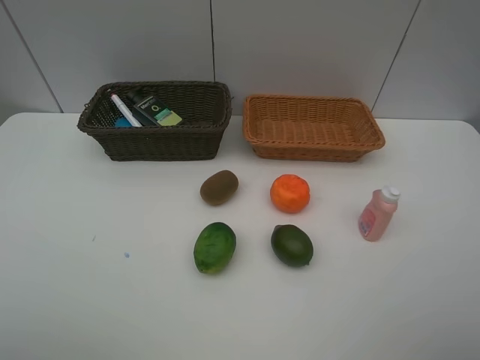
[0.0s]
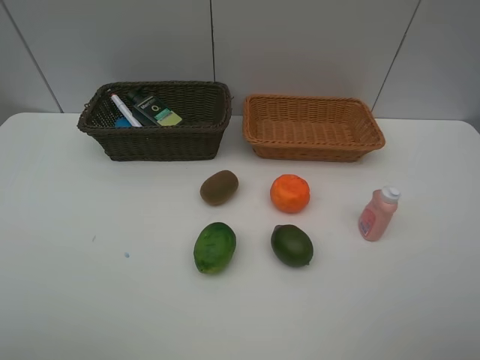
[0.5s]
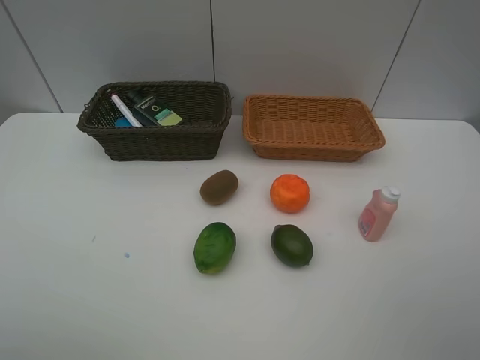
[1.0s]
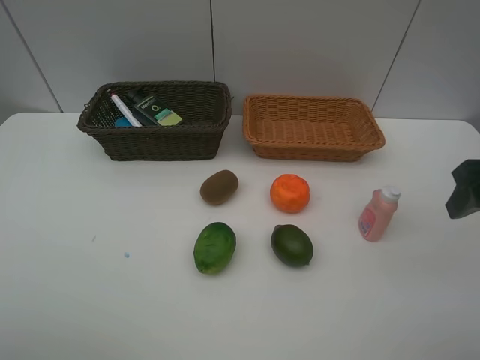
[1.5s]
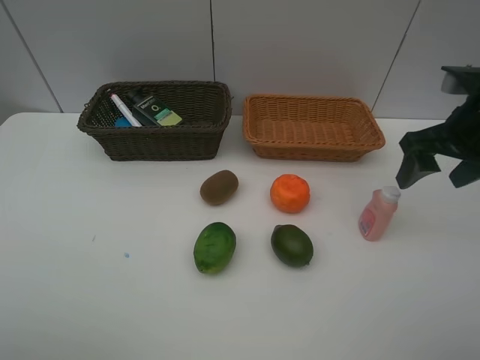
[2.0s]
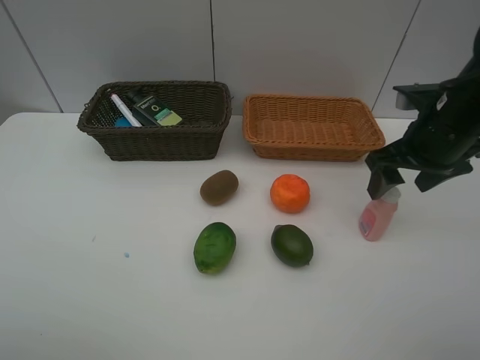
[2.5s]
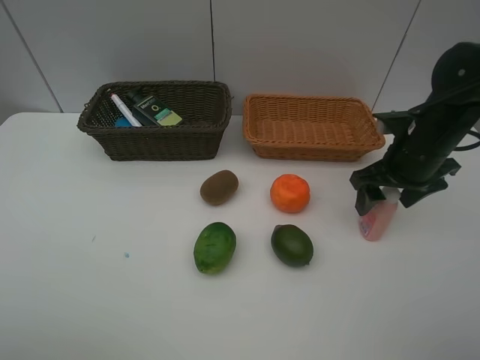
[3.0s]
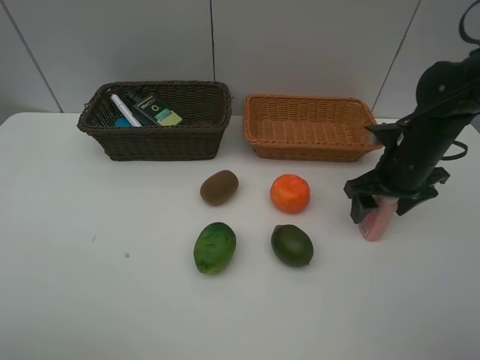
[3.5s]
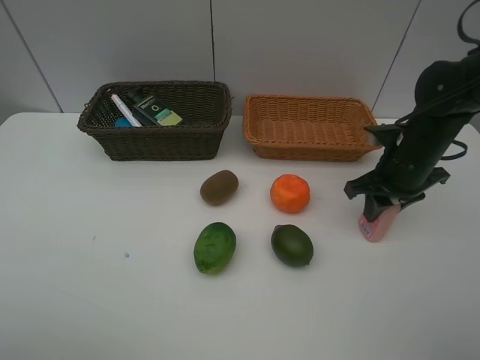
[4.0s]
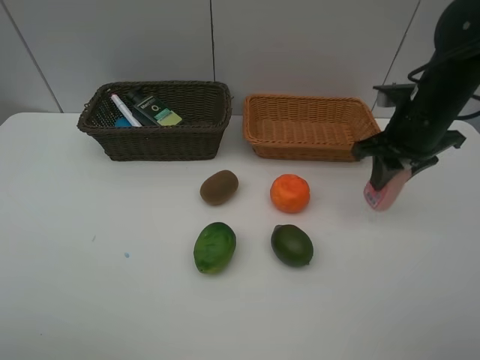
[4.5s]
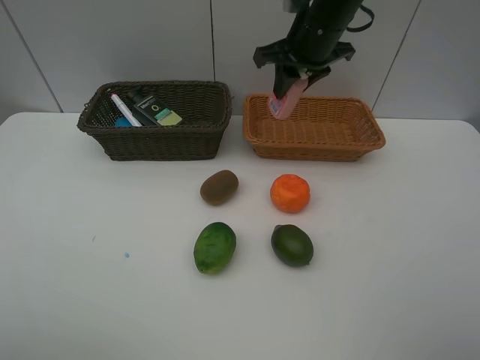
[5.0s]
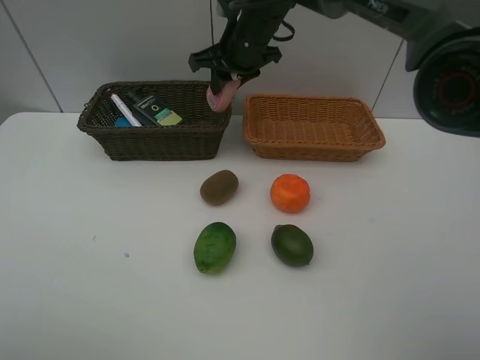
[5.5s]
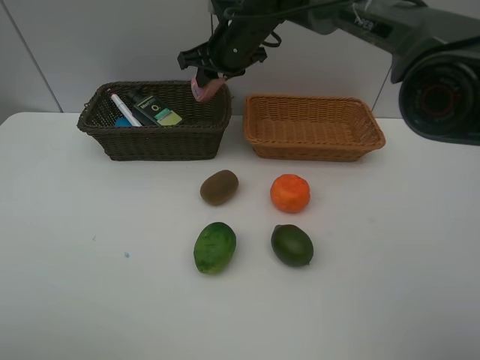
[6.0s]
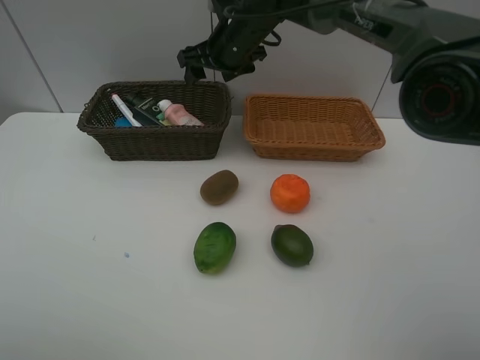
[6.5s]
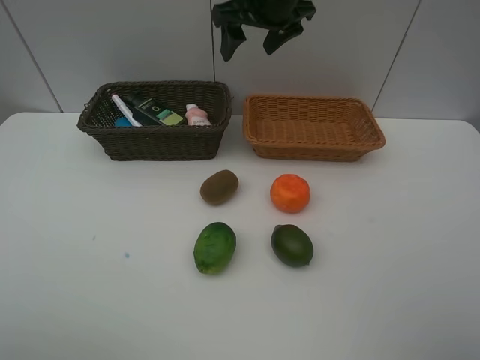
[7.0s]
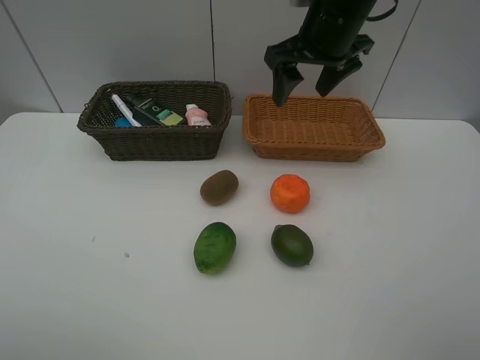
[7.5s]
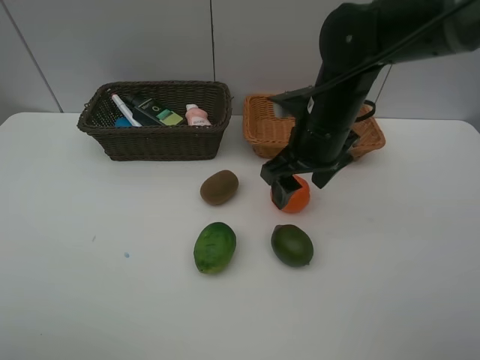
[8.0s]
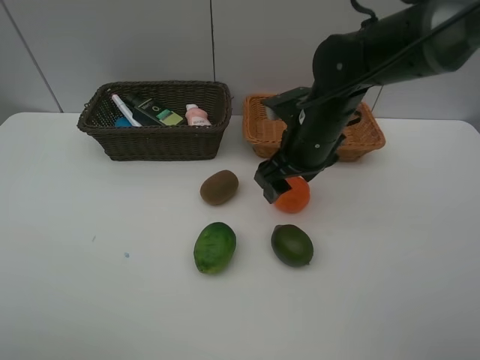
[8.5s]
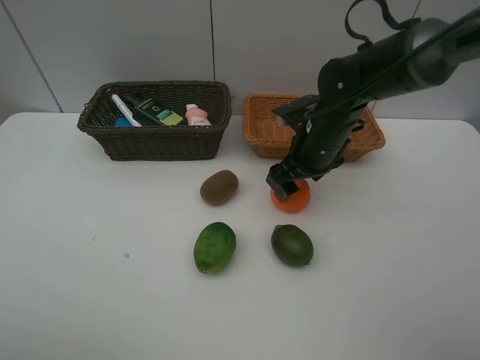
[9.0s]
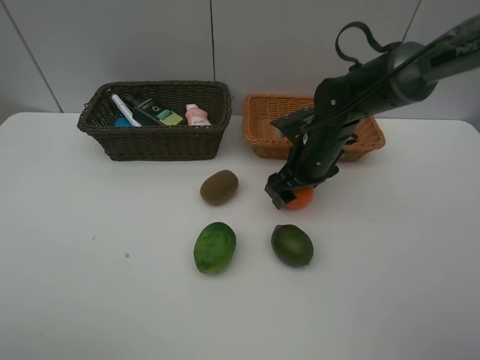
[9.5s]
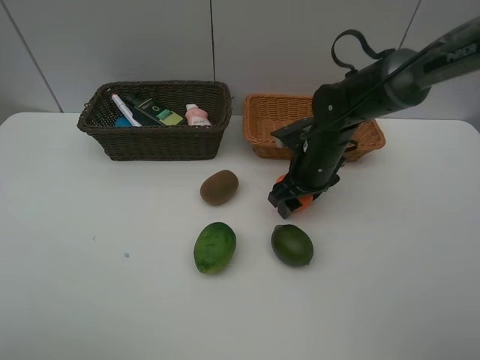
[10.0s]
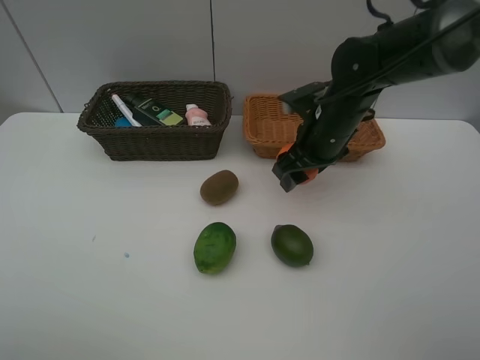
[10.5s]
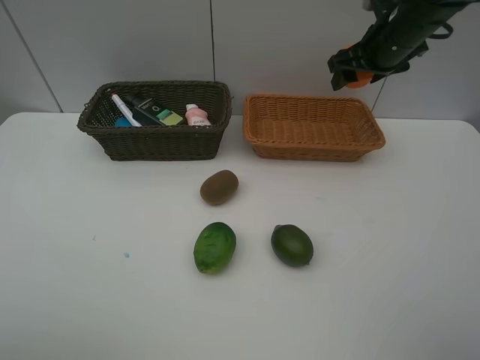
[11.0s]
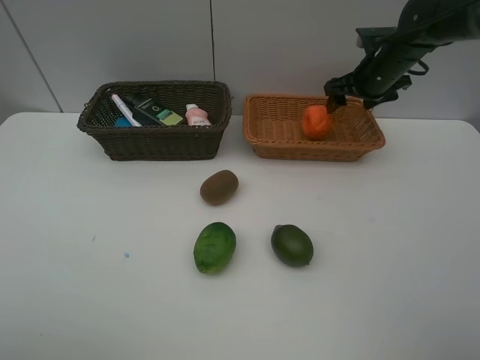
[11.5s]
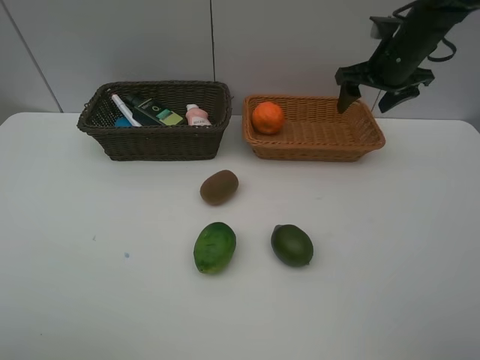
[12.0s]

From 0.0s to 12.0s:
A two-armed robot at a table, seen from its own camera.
Task of the whole recording: Place multiple objects separately in different baskets.
Step, from 0.0s to 4.0s: Pick up the laundry detergent with right gripper.
Step, from 4.5s to 6.0s: Place the laundry detergent in the dark basket with right gripper.
Step, from 6.5s to 10.0s: Pick up the orange with right gripper.
Step, from 10.5s to 11.5s: Place the orange in the light basket with right gripper.
From 0.0s to 2.0s: The right gripper heads forward, covering some 25 cm.
From 2.0s to 4.0s: The right gripper shifts about 10 cm downward, and closes.
From 4.0s to 6.0s: The right gripper is displaced to the left and forward by roughly 30 cm.
From 6.0s to 8.0s: The right gripper is displaced backward and to the right by about 20 cm, and opens.
From 8.0s to 10.0s: The right gripper heads downward, covering some 10 cm.
From 10.0s to 12.0s: The right gripper swings up and down, about 15 cm each way, with 2 reversals.

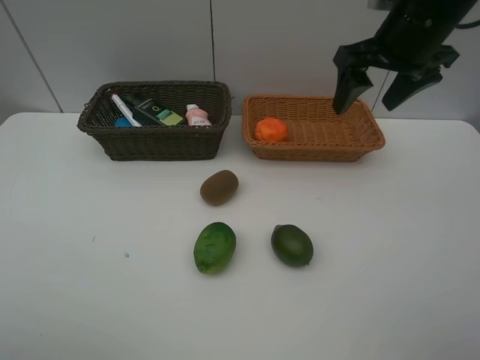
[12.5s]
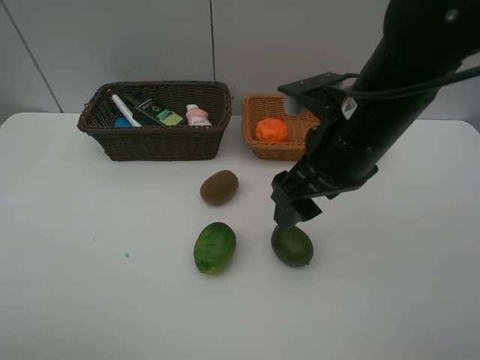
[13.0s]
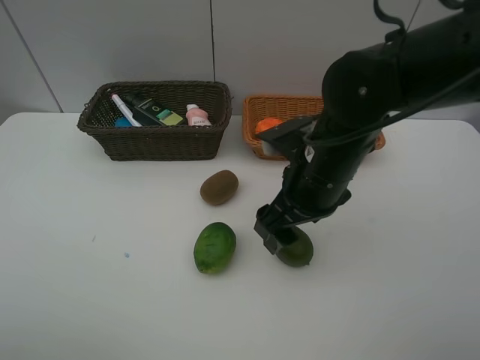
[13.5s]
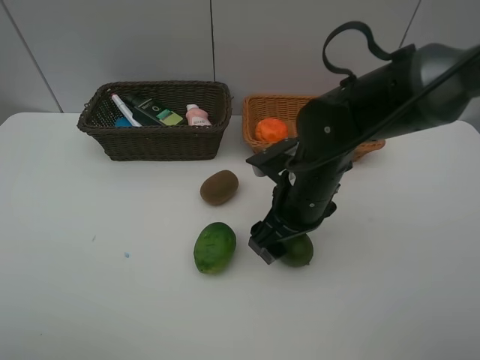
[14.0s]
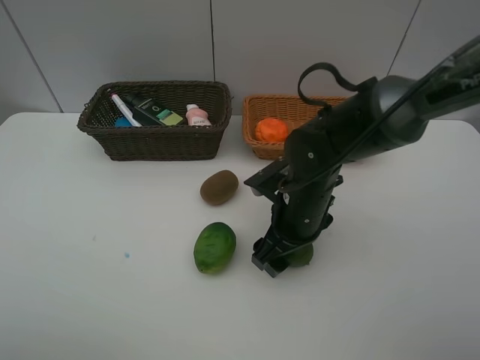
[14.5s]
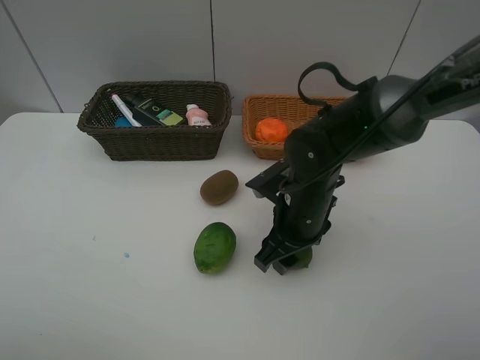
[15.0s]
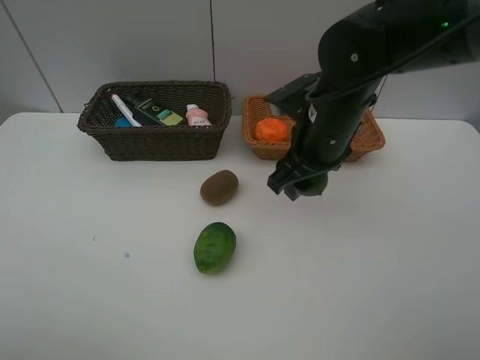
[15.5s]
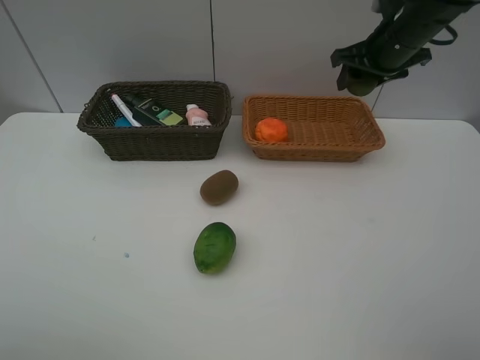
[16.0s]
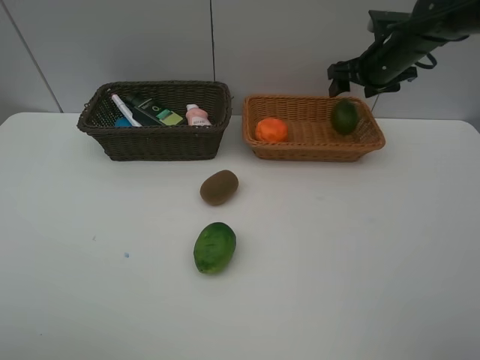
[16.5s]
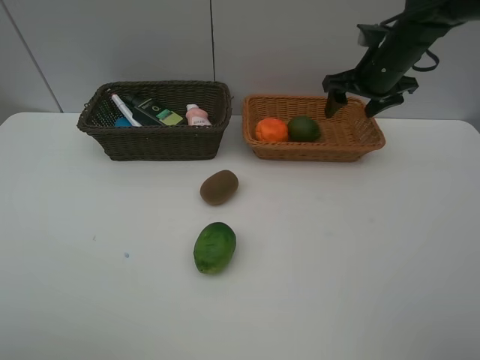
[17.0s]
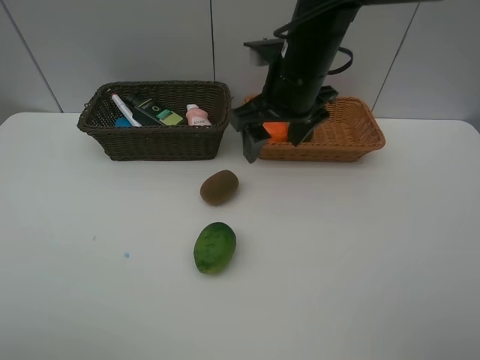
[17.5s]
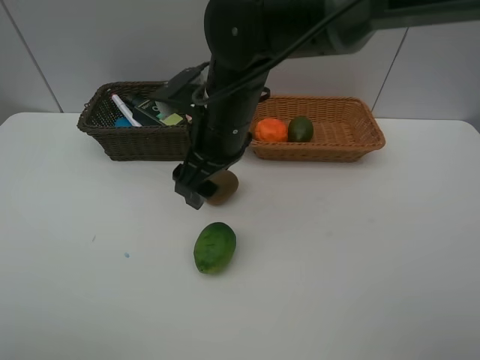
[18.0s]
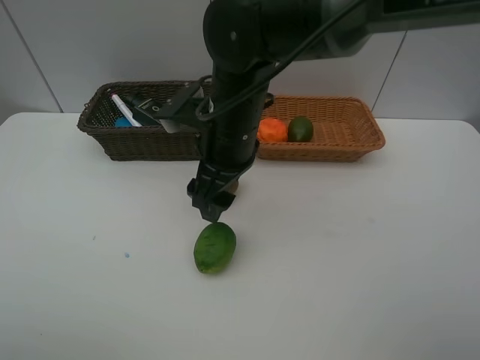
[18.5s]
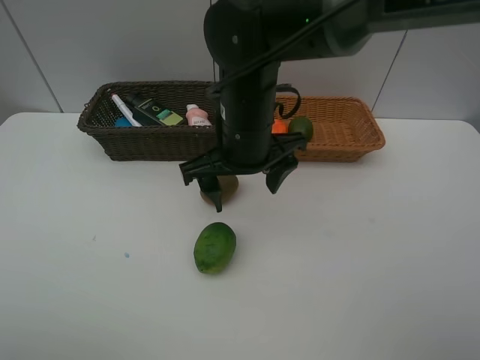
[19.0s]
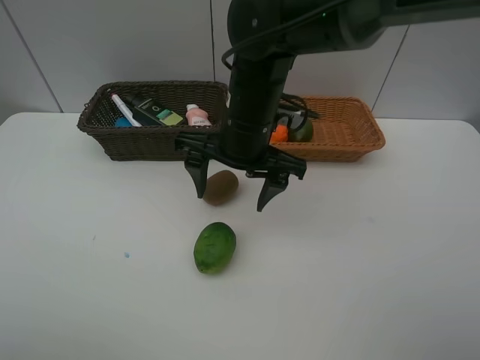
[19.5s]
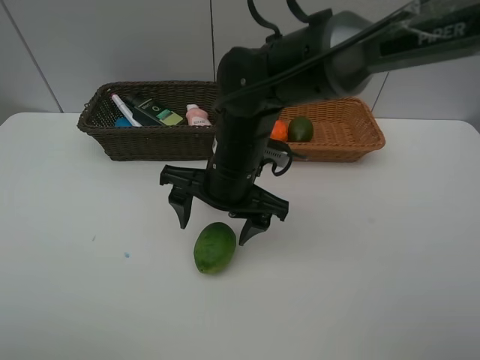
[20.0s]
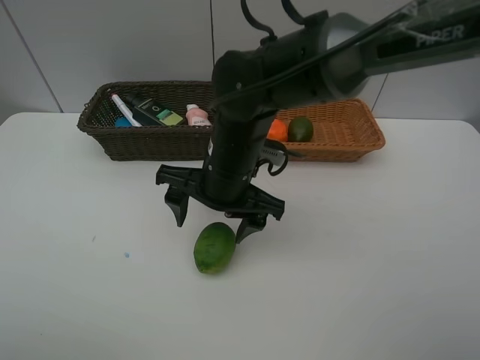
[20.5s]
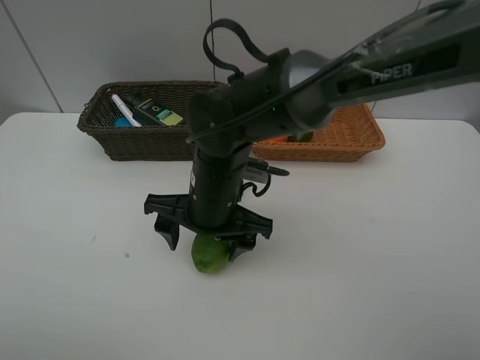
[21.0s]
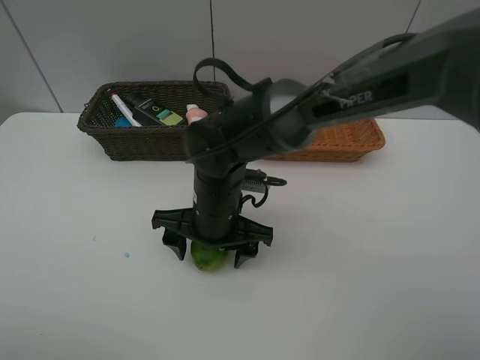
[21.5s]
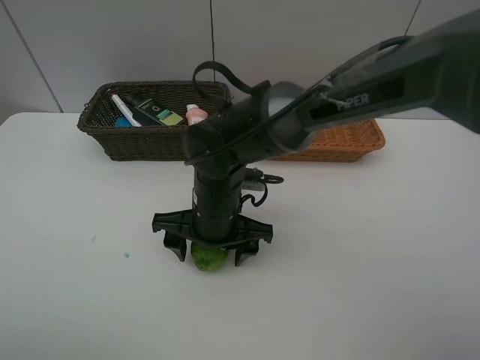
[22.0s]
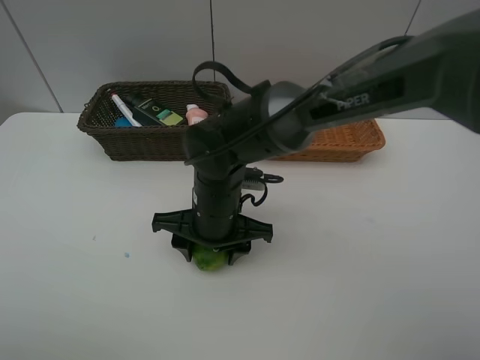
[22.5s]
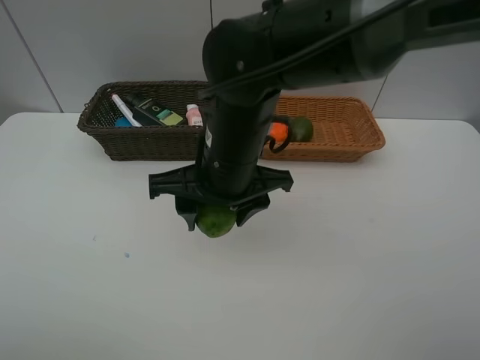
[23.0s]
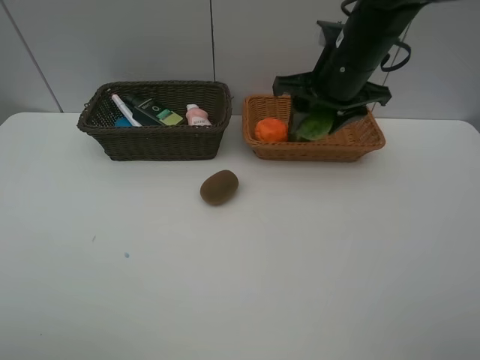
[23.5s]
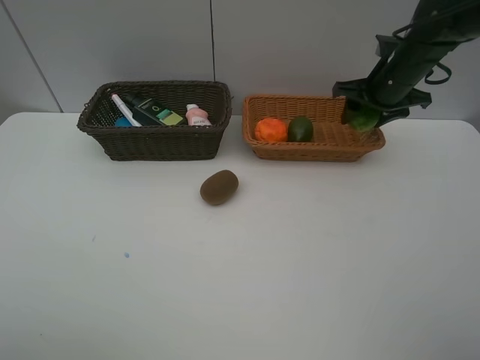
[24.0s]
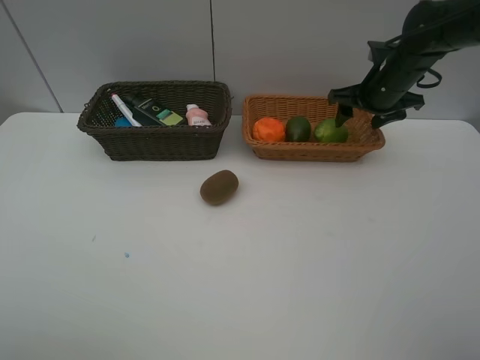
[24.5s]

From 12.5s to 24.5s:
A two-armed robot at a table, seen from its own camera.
Task of the whole recording: Place multiple objects separately in different baskets.
Step, from 12.5s to 15.0s: Pick up the lime with right gripper.
Step, from 15.5s to 16.5s: Place the lime in the light basket with right gripper.
Step, from 17.0s to 22.5s: Pick up the lime with right gripper.
From 12.5s to 14.5s: The right gripper goes roughly 25 cm downward and to the left.
From 14.5s to 16.5s: The right gripper moves forward, to the right and upward, about 30 cm, and closes, then reopens.
From 16.5s to 18.5s: The right gripper shifts some 30 cm to the left and backward.
From 20.5s to 22.5s: The right gripper goes some 5 cm downward, and closes up.
From 22.5s to 24.5s: The right gripper goes roughly 35 cm to the right and forward.

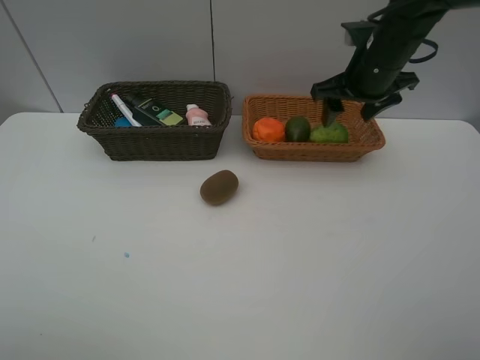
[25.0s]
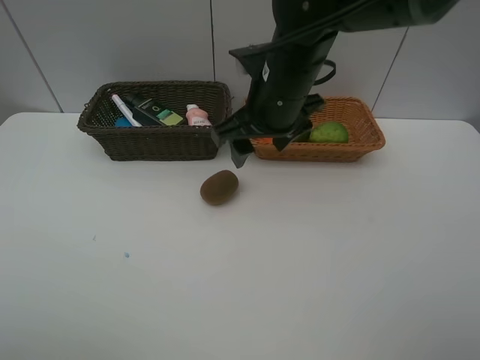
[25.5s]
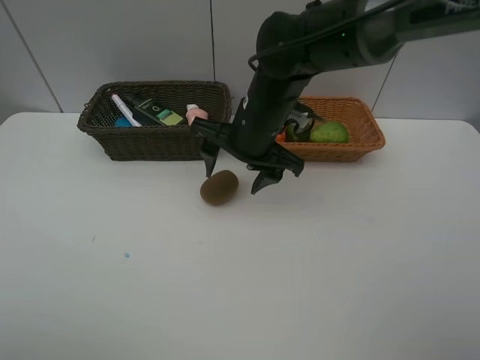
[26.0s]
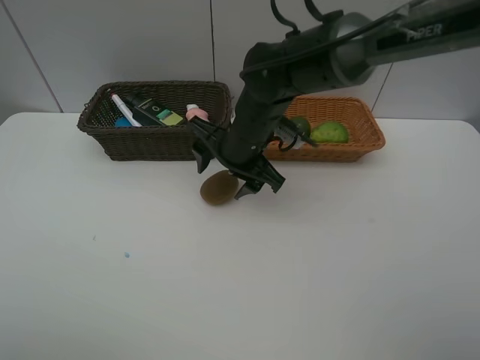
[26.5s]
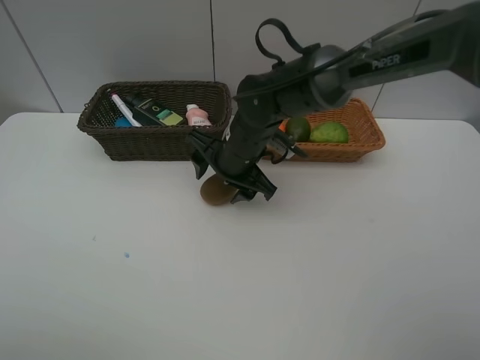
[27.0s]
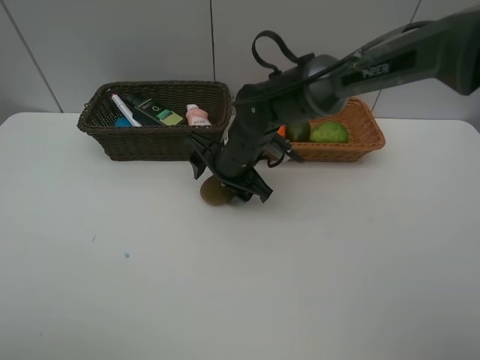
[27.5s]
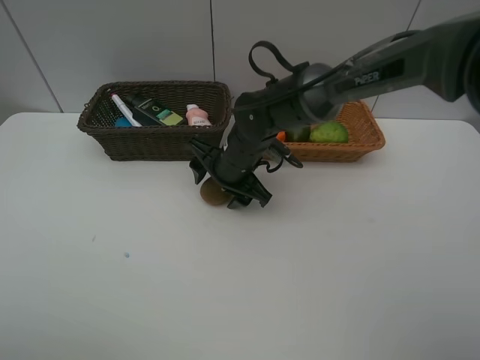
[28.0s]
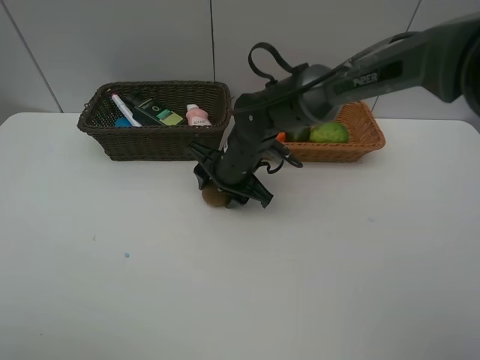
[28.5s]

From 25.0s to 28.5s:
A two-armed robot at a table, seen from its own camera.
Task of the whole recording: Place multiple objects separately in different baskets.
From 25.0s to 27.0s: The right gripper is displaced to the left and downward by roughly 20 cm.
From 27.0s to 28.5s: The grippers stay close to where they were, moving slightly.
